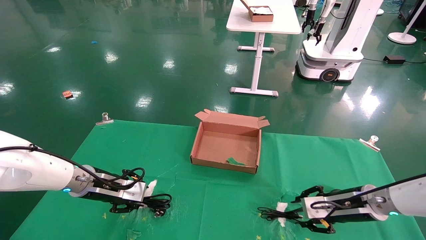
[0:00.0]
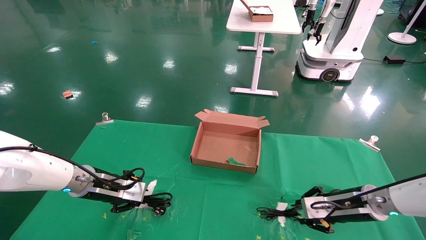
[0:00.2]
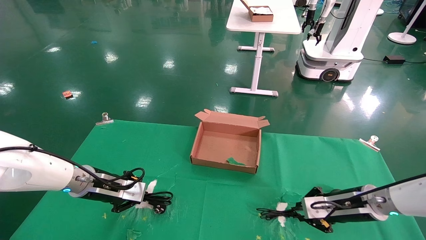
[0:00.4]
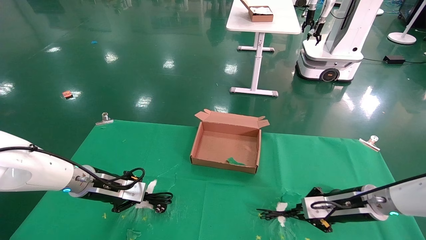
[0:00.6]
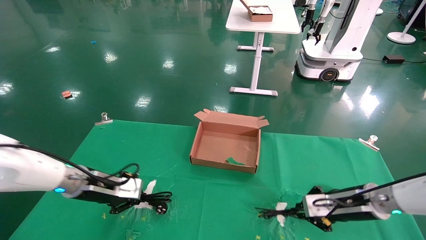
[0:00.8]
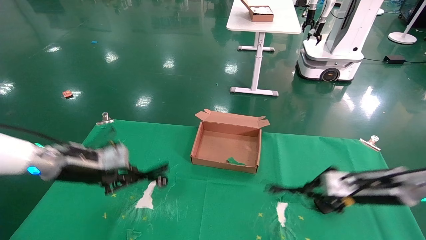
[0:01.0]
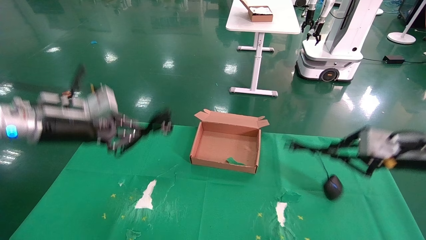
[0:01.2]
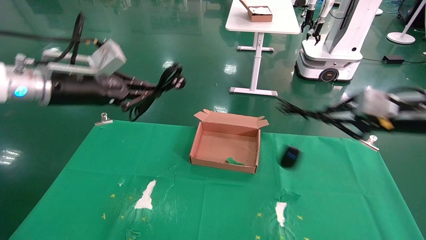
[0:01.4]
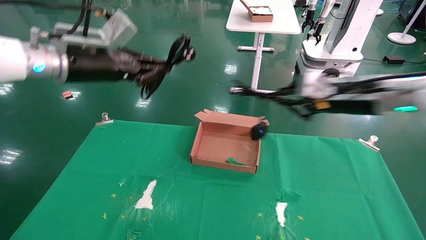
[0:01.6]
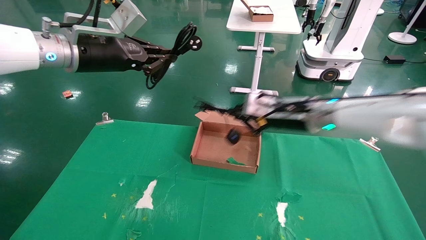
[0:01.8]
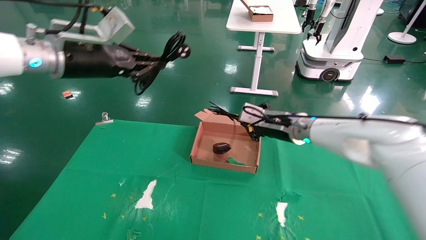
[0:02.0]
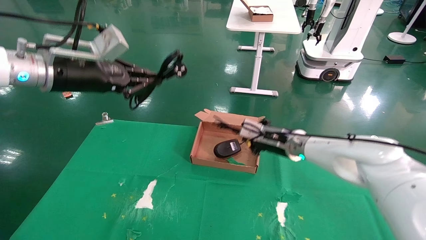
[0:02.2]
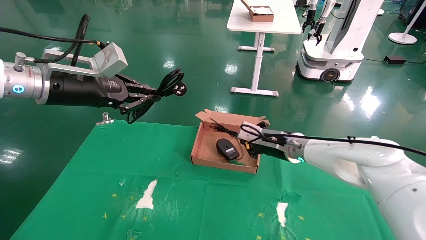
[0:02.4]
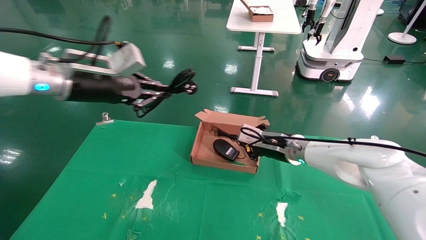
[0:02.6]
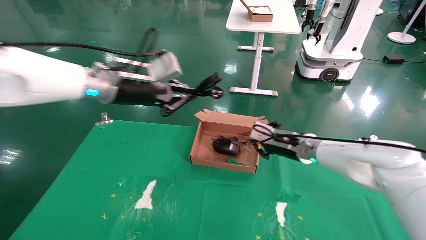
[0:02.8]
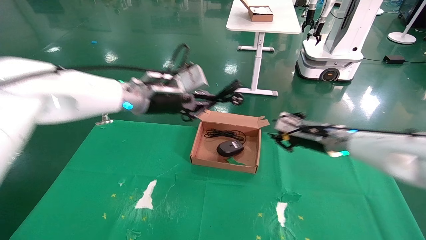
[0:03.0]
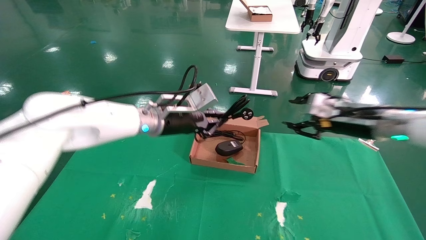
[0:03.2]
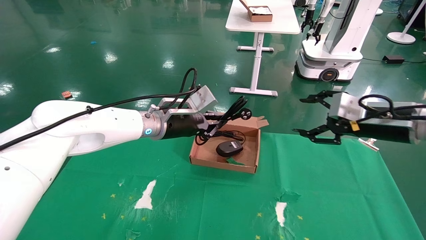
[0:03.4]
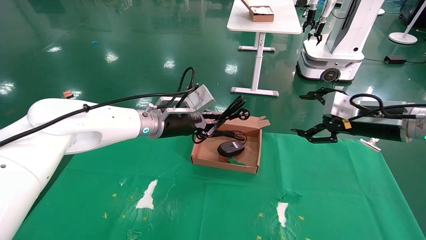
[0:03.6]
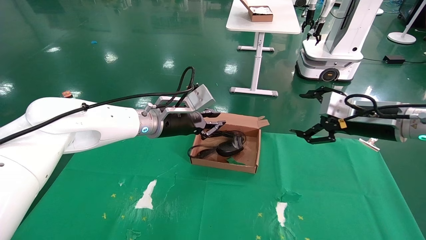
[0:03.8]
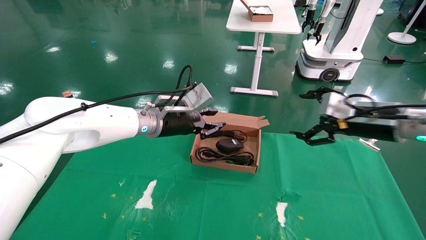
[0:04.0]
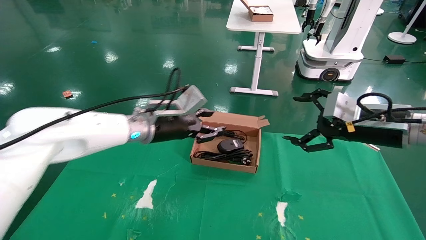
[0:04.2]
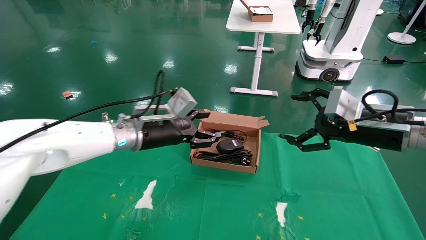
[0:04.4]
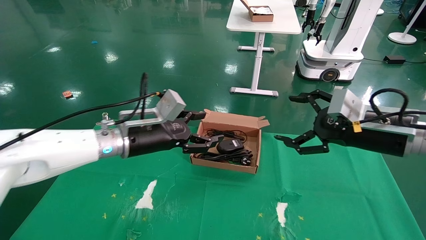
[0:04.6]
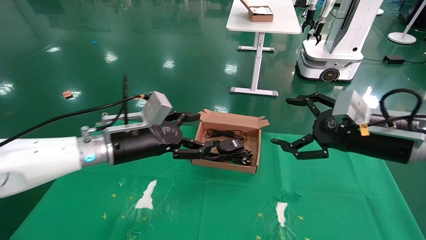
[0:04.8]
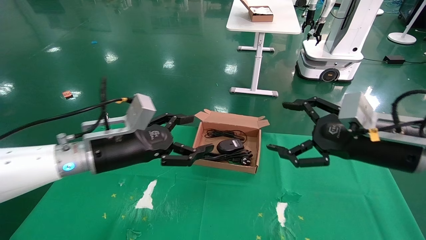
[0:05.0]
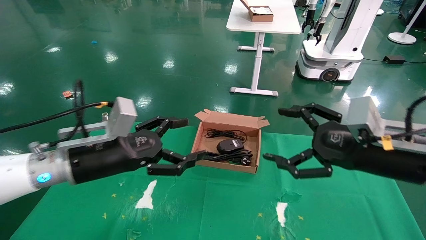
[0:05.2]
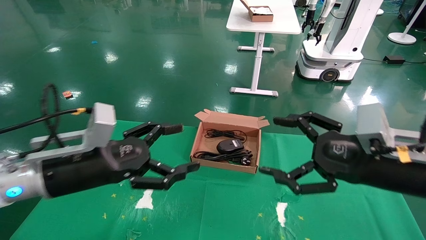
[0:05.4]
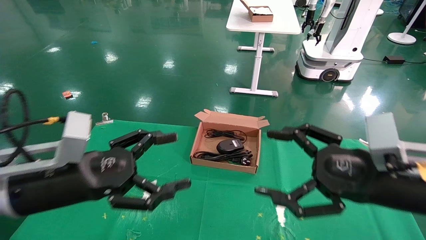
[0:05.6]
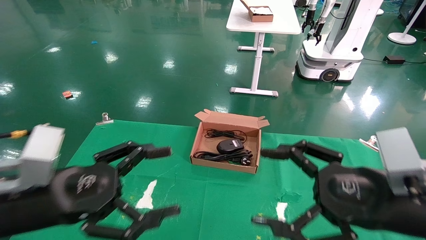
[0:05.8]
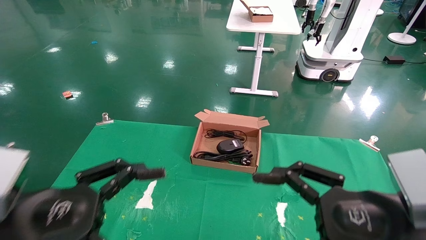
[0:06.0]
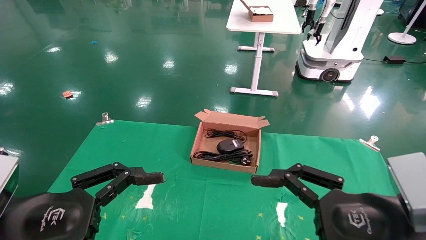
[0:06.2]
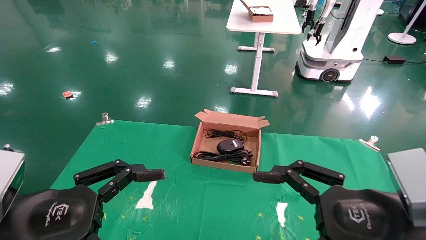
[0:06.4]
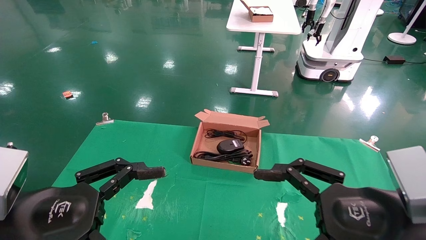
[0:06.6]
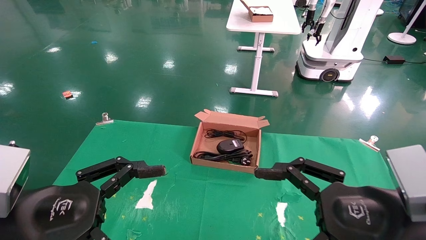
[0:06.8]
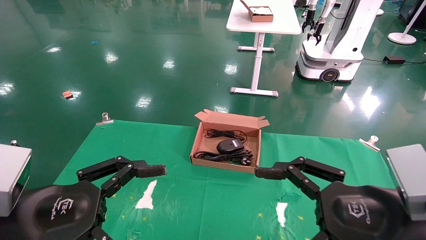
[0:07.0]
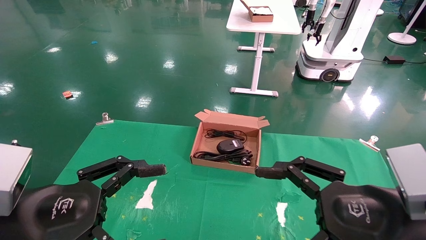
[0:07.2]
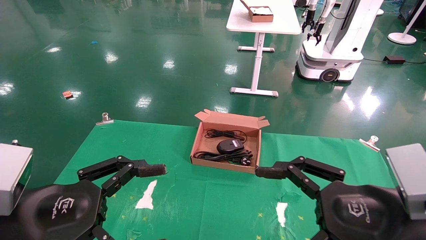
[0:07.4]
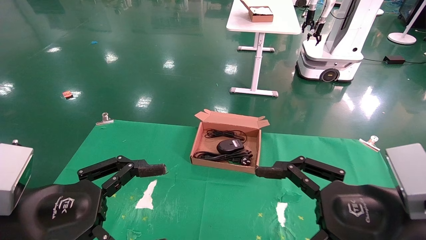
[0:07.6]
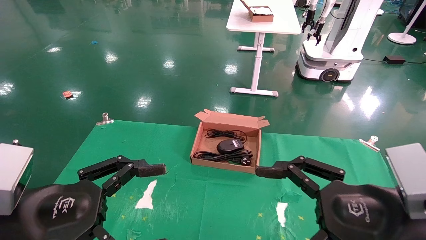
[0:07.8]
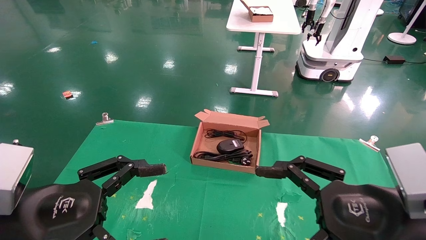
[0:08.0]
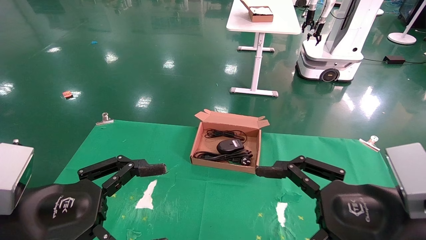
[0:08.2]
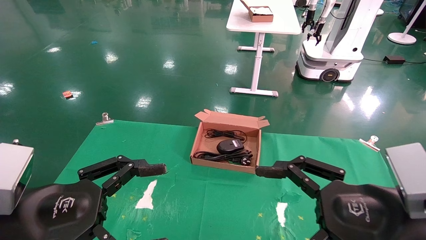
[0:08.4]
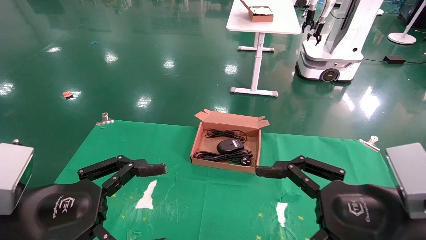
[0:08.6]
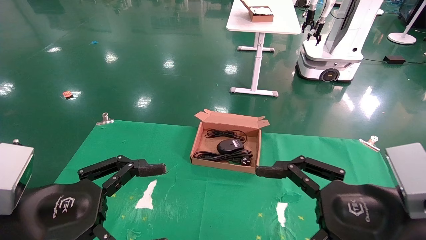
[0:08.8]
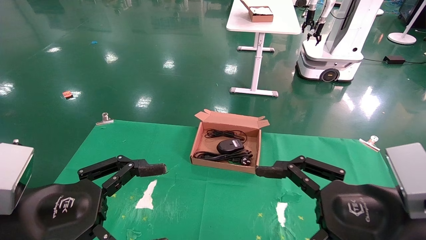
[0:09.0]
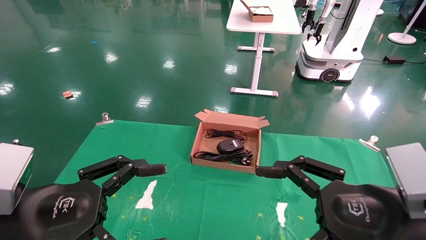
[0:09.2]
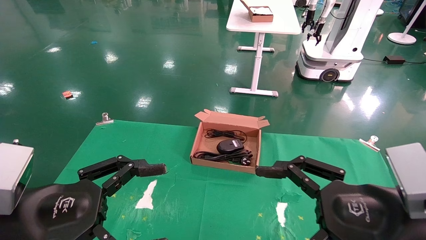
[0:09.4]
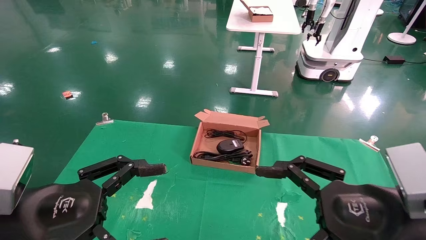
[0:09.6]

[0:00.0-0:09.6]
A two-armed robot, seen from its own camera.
Step, 0:01.6 to 0:04.4: Place the mouse and power cord into the box.
0:00.0 to 0:01.6: The two grippers go about 25 cm upward. The right gripper closes, while the left gripper closes.
0:01.6 to 0:03.2: The right gripper travels to the left and back again, approximately 10 cm each way, and opens up, while the left gripper heads to the right, downward and forward, covering approximately 20 cm.
0:03.2 to 0:04.8: The right gripper travels backward by some 10 cm, and opens up; the left gripper travels backward and to the left by some 10 cm, and opens its fingers.
0:04.8 to 0:06.4: The two grippers go approximately 20 cm backward.
0:06.4 to 0:09.6: The two grippers keep their place.
